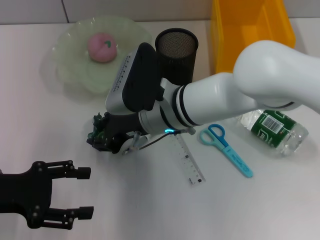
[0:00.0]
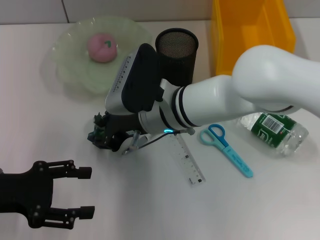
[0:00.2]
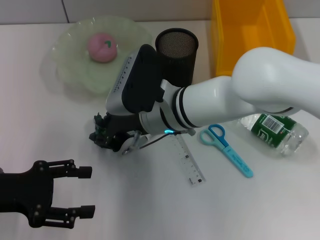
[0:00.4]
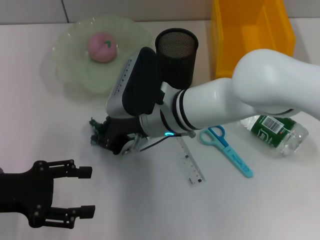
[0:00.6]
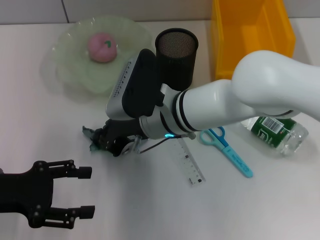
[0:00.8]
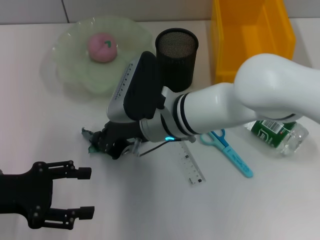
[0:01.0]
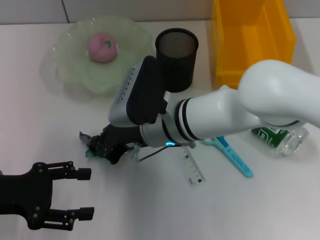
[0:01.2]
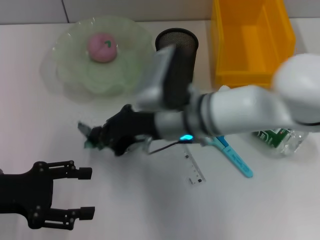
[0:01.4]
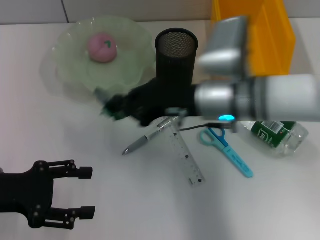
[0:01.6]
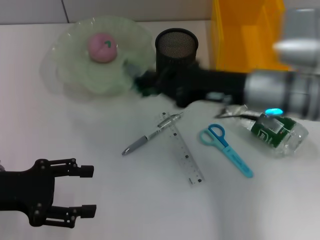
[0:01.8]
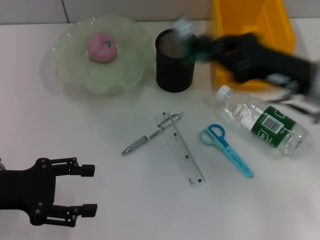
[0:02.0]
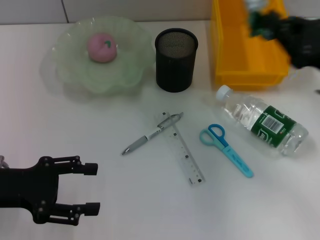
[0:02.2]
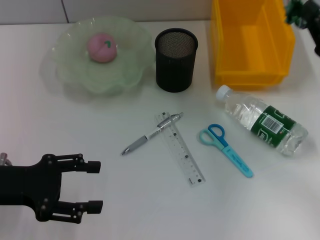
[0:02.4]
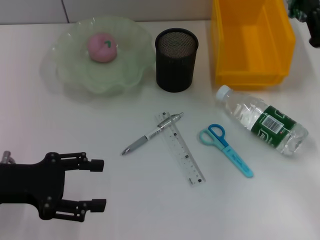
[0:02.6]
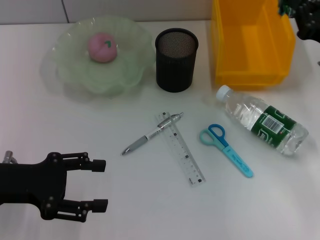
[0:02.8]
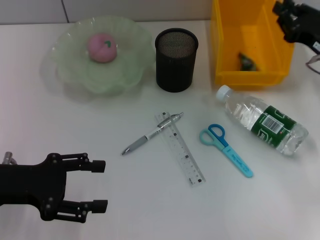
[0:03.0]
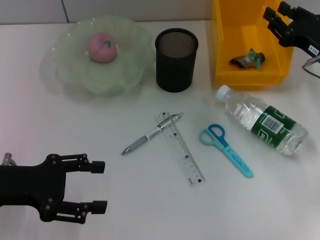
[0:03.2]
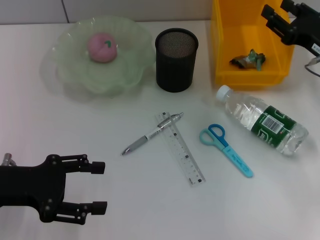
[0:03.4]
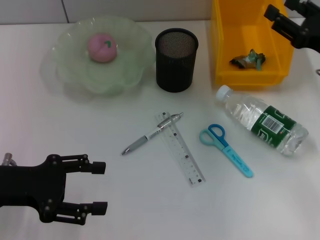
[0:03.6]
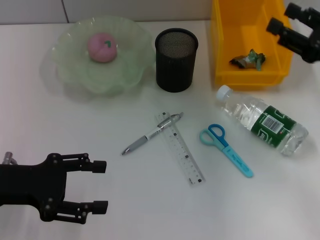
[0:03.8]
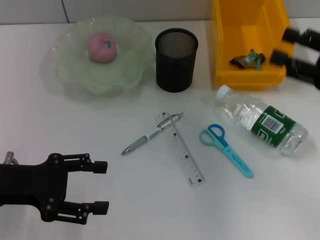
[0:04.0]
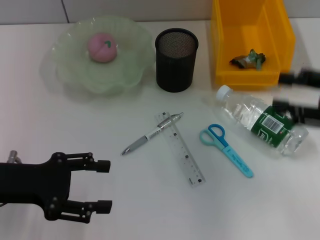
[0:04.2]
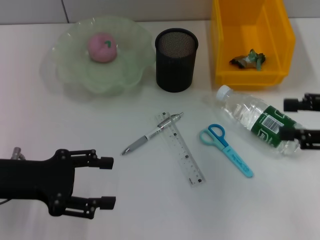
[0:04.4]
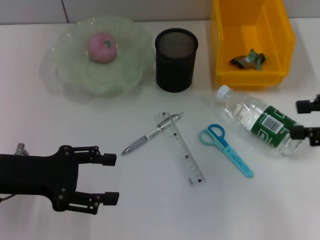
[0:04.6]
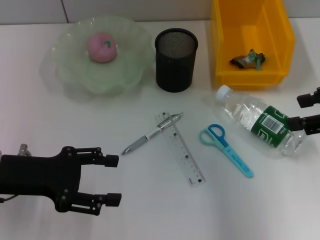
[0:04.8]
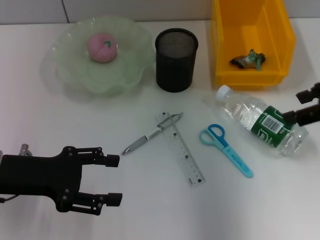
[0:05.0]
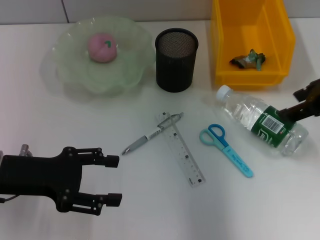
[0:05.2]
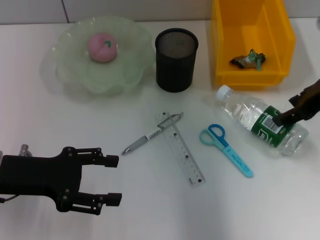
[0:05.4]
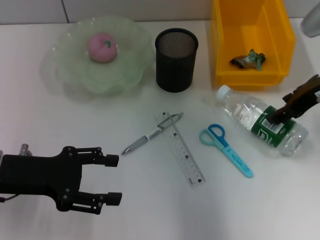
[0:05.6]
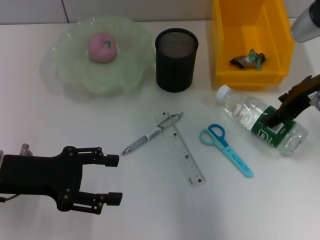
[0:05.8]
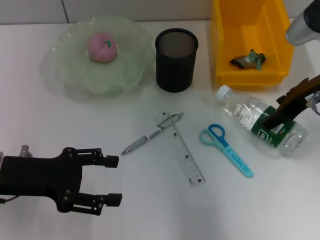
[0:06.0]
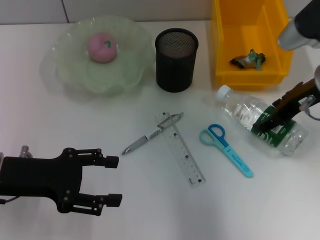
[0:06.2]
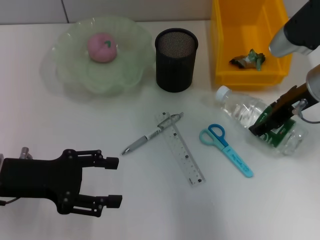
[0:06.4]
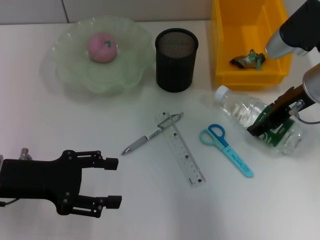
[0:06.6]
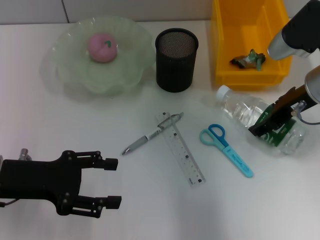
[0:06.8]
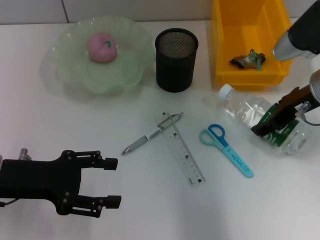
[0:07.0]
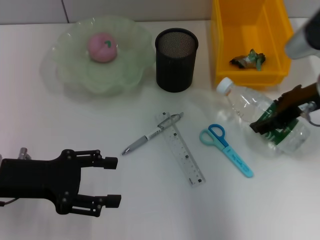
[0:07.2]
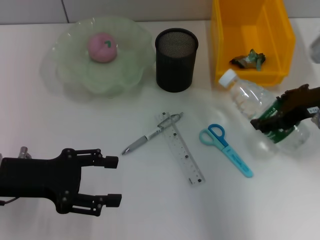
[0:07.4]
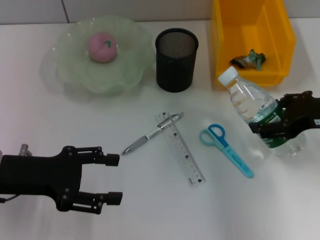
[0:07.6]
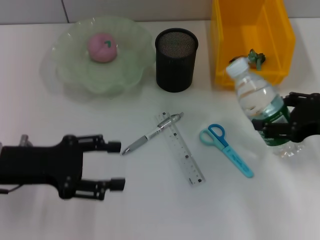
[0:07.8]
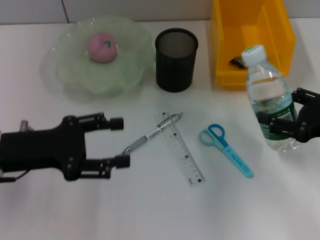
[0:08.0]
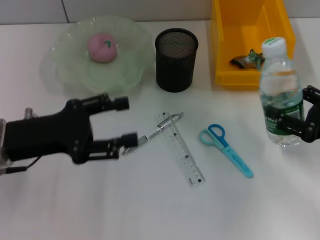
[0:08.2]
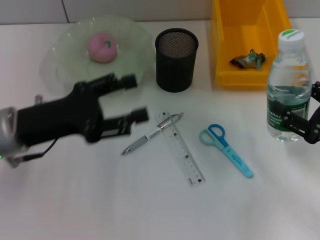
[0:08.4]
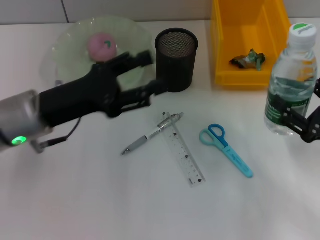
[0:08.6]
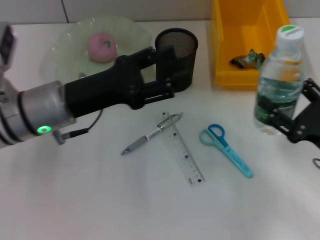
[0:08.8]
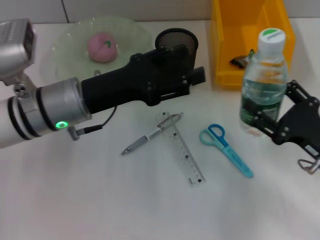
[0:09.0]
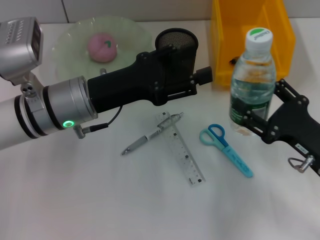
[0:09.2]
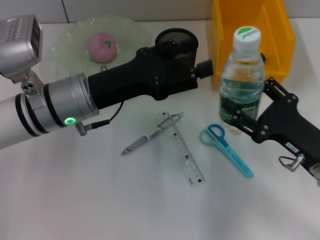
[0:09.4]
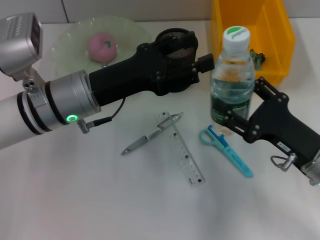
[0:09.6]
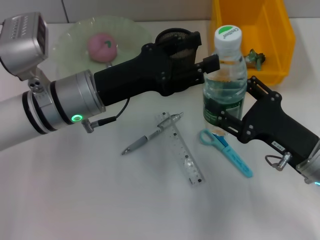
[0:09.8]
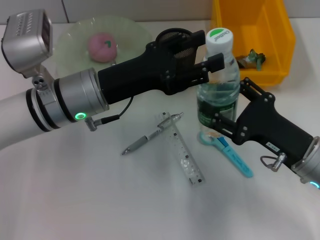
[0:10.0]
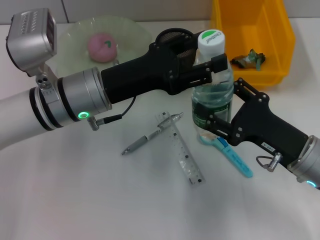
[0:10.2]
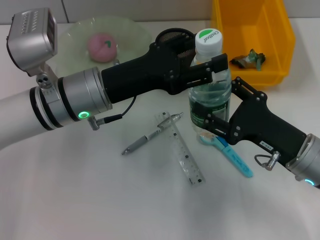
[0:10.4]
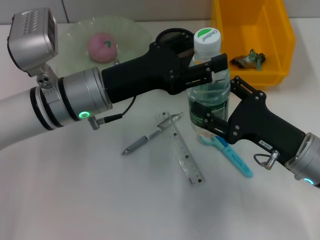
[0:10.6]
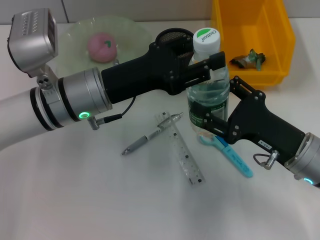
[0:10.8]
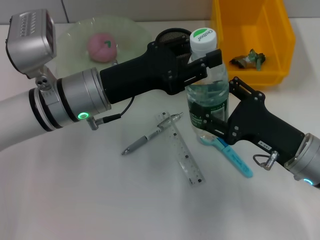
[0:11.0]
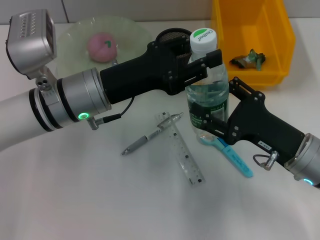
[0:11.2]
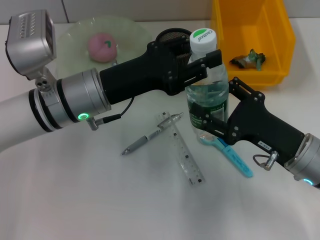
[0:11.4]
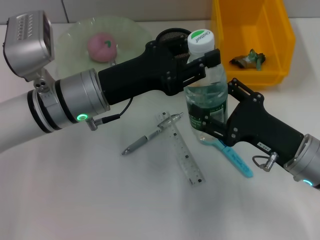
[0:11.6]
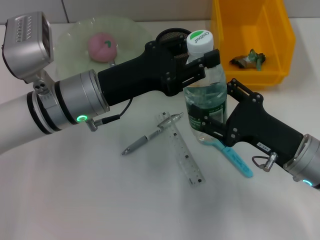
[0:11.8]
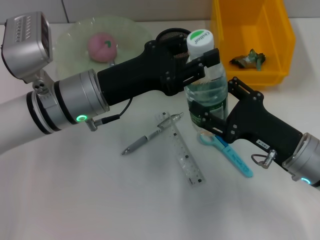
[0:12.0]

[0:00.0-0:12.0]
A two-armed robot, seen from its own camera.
Step, 0:00.8 to 0:02.8: Place the plastic into the trash can with the right hand.
Step, 0:03.2 to 0:06.8: Grab the water bottle with the right hand.
0:00.0 to 0:01.6: The right gripper moves to the right, approximately 10 cm, and closes up.
0:01.6 to 0:03.0: The right gripper shifts approximately 20 cm to the right.
0:03.0 to 0:04.4: The right gripper shifts roughly 15 cm backward and upward, and opens its fingers.
0:04.4 to 0:06.0: The right gripper shifts approximately 15 cm forward and to the left.
0:06.0 to 0:07.6: The right gripper moves backward, approximately 5 cm.
0:07.6 to 0:09.0: The right gripper is displaced downward and backward by some 15 cm, while the left gripper travels to the right and forward by approximately 10 cm.
0:09.0 to 0:10.4: The right gripper heads to the left, covering approximately 5 cm.
0:10.4 to 0:12.0: Both grippers stay put.

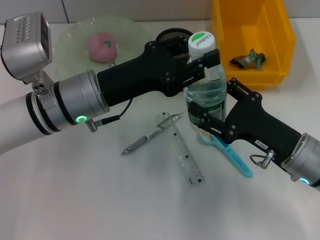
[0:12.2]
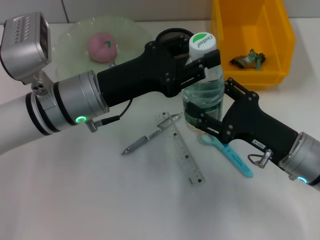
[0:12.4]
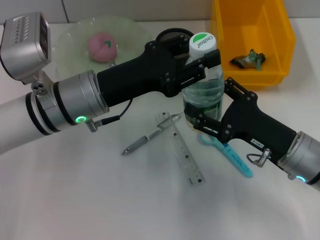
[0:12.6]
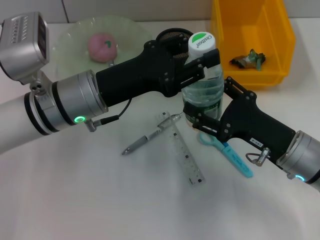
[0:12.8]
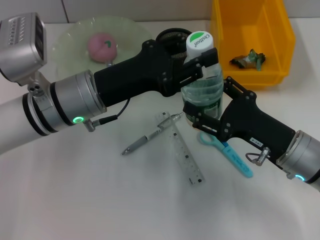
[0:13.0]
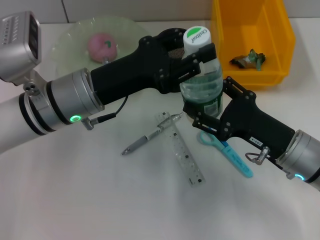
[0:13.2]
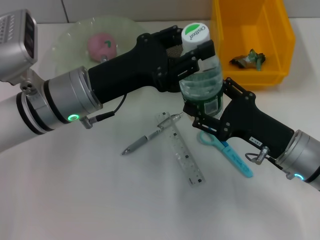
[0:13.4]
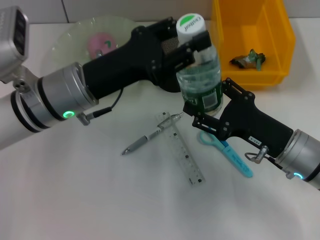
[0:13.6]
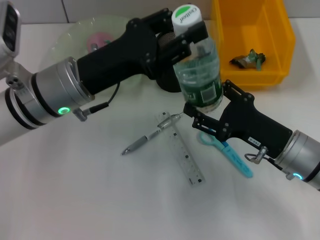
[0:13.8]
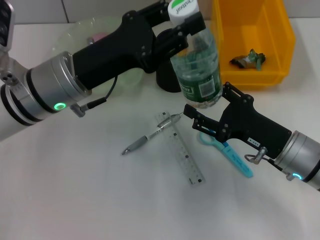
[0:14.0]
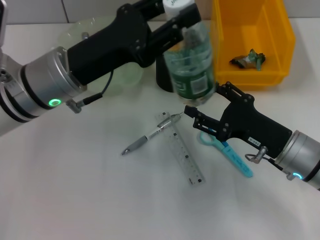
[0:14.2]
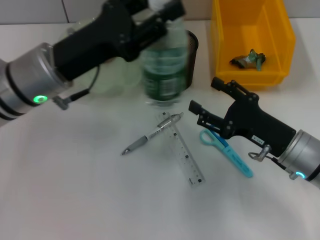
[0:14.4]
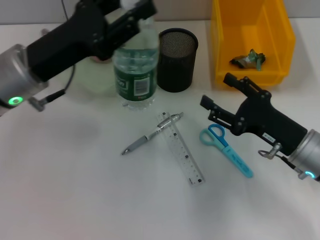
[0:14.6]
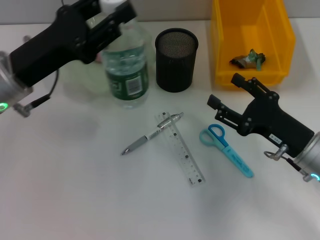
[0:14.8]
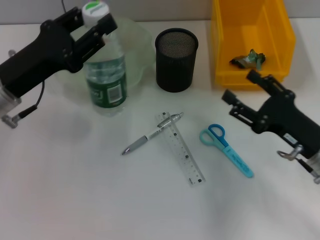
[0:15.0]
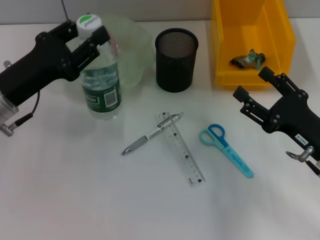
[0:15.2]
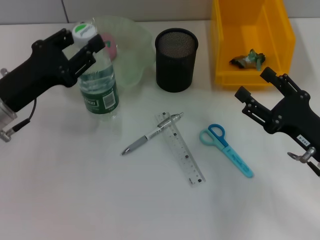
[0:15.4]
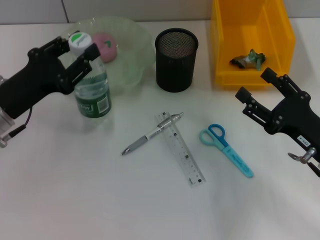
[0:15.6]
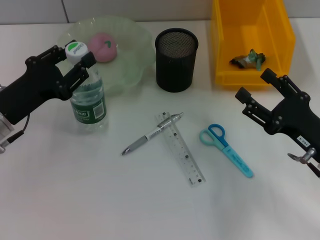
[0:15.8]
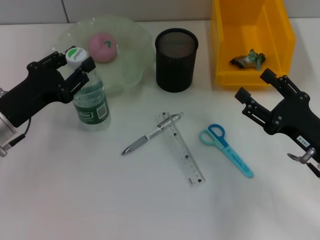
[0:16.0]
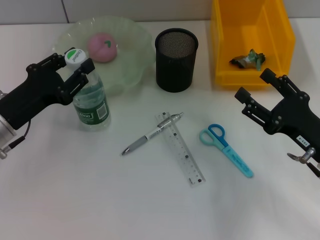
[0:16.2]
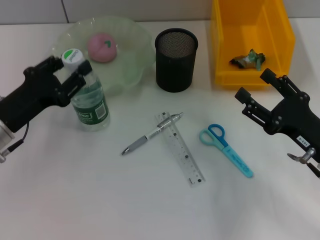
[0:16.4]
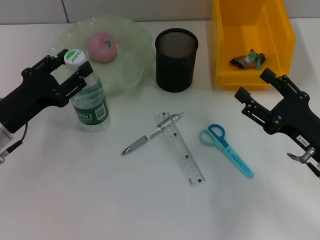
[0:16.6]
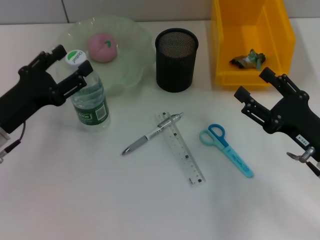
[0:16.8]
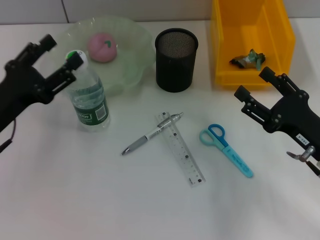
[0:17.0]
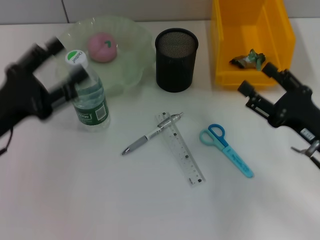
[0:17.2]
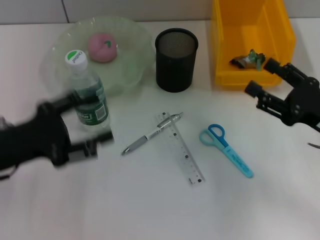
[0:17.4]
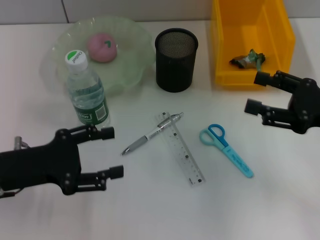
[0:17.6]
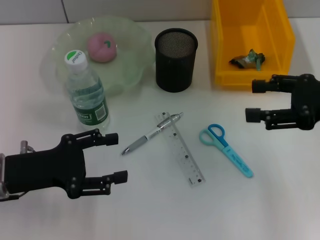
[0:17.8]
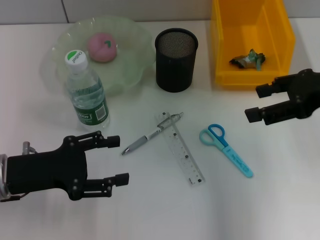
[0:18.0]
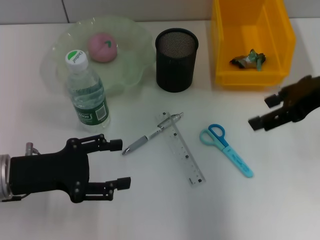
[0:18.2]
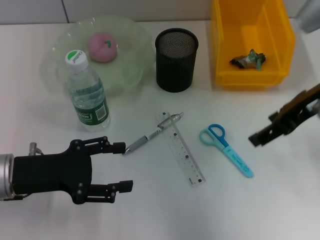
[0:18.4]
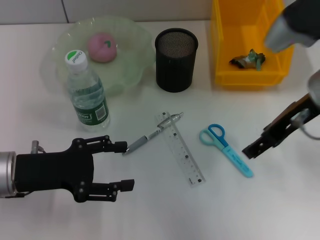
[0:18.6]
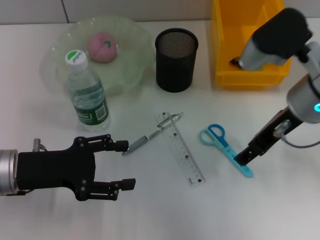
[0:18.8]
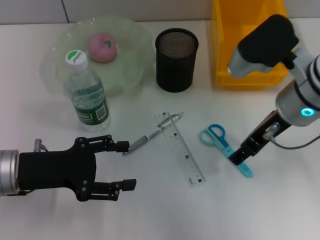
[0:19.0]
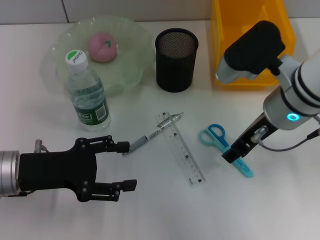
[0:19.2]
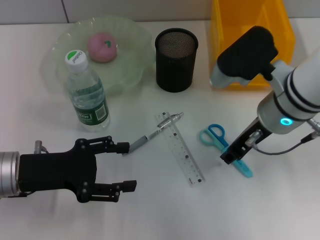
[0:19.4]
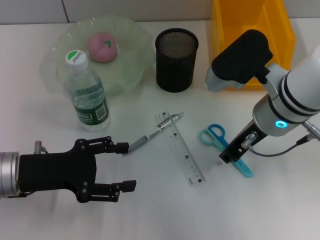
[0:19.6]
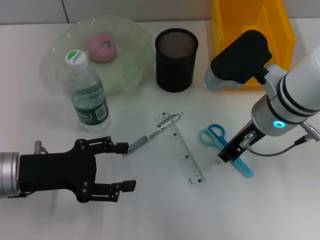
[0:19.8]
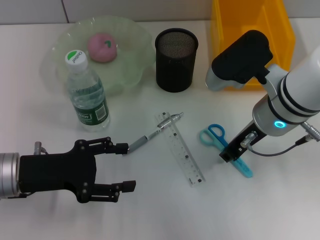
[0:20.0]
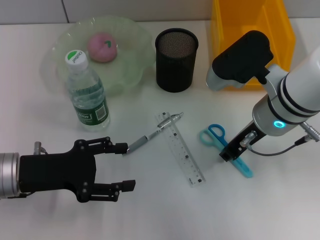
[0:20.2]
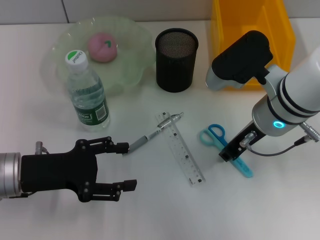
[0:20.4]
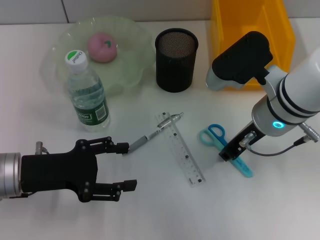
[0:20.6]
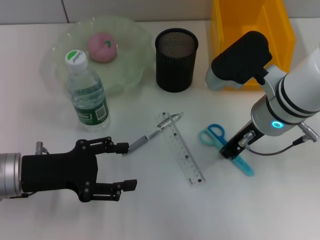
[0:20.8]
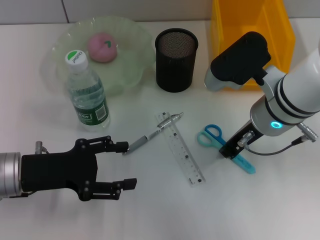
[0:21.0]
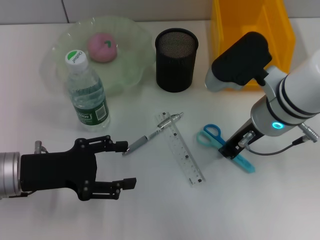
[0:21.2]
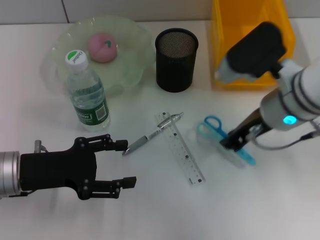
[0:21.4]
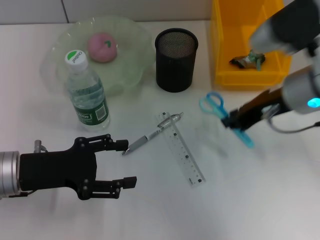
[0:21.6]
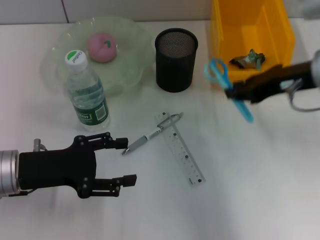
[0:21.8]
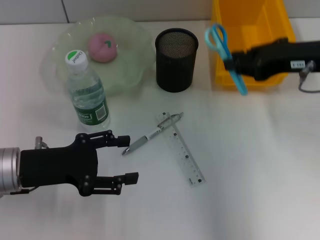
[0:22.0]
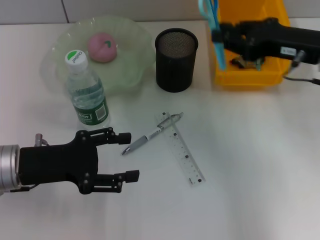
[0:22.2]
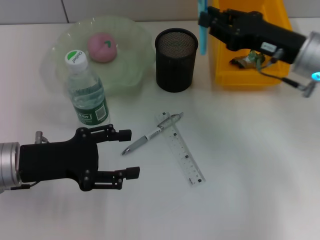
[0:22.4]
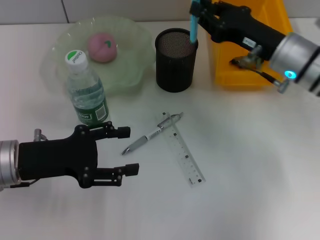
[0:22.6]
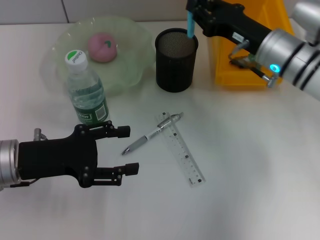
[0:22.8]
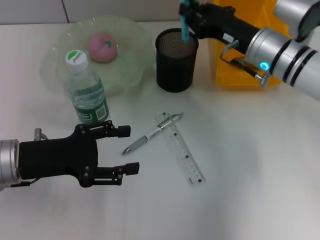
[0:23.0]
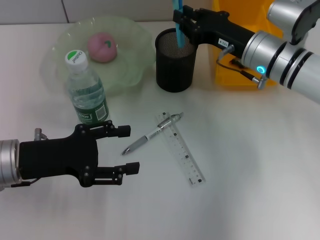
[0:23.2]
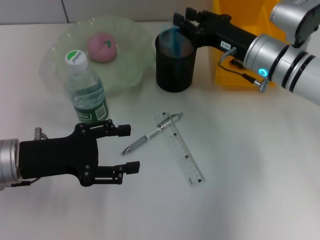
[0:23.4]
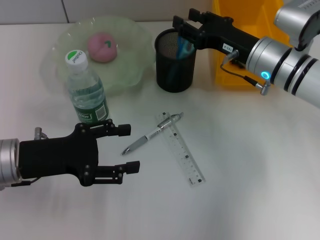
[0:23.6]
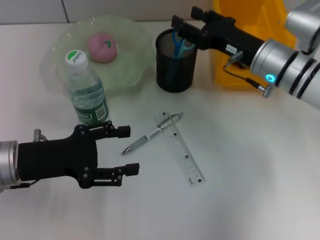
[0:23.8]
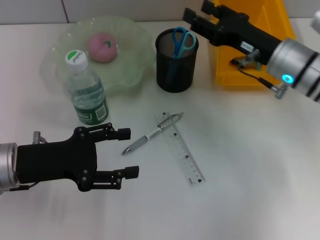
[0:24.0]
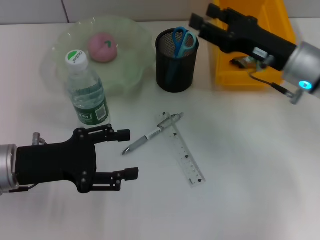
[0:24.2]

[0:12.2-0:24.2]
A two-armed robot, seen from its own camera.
Step, 0:14.0 to 0:16.6: Place the water bottle on the table with the left hand.
Step, 0:17.0 to 0:21.0: Grab the blue scissors with the right hand.
Step, 0:21.2 to 0:23.6: Place the blue scissors into the pen holder with the right hand.
0:13.8 to 0:15.2: The left gripper moves to the left, roughly 10 cm. The right gripper ends up approximately 5 cm from where it was.
0:15.2 to 0:16.6: The left gripper ends up approximately 5 cm from where it was.
0:16.6 to 0:18.2: The right gripper moves upward and forward, some 20 cm. Meanwhile the left gripper opens up.
0:18.2 to 0:19.8: The right gripper travels to the left and downward by approximately 15 cm, and closes its fingers.
0:19.8 to 0:21.2: Both grippers stay about where they are.
0:21.2 to 0:22.6: The right gripper heads to the right and forward, covering approximately 10 cm.
0:22.6 to 0:24.2: The right gripper opens its fingers.
